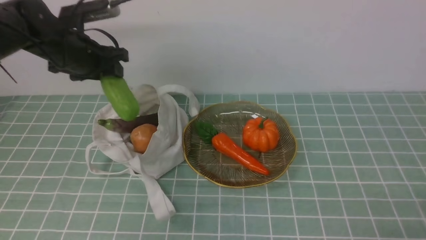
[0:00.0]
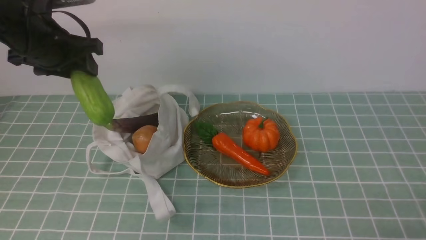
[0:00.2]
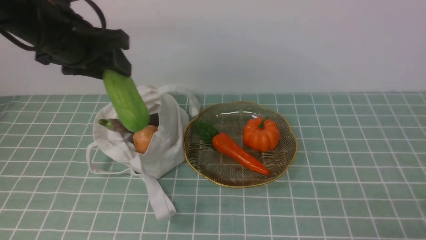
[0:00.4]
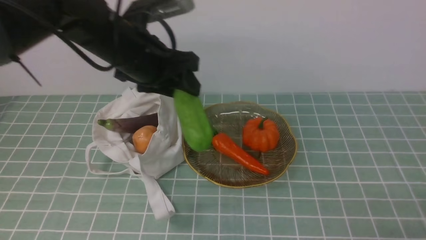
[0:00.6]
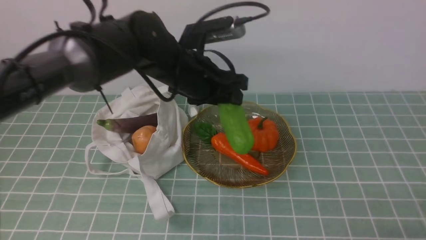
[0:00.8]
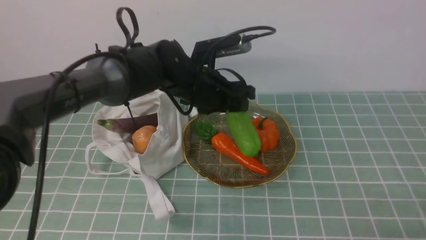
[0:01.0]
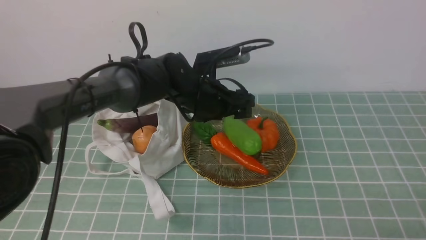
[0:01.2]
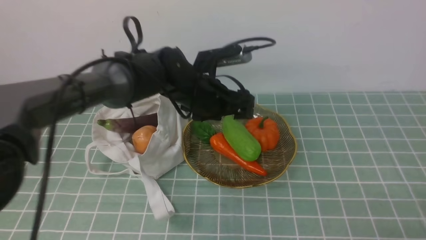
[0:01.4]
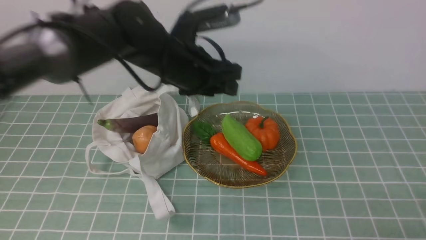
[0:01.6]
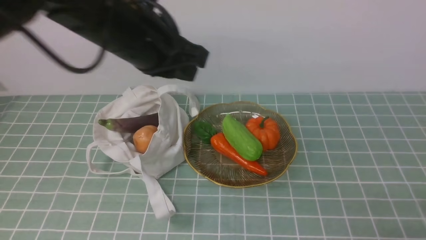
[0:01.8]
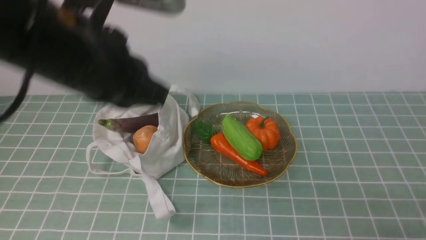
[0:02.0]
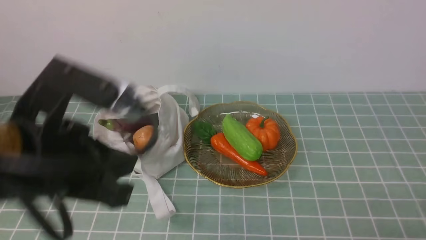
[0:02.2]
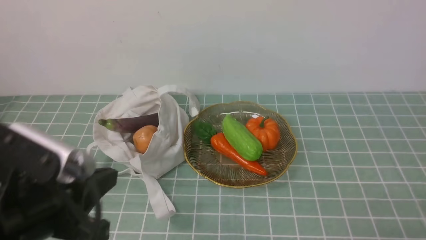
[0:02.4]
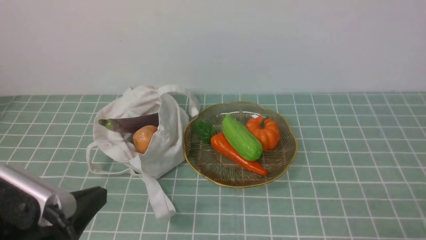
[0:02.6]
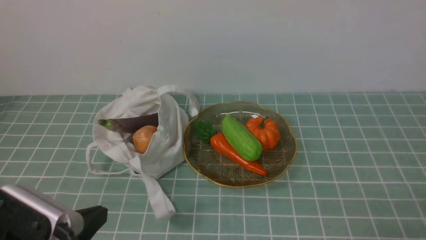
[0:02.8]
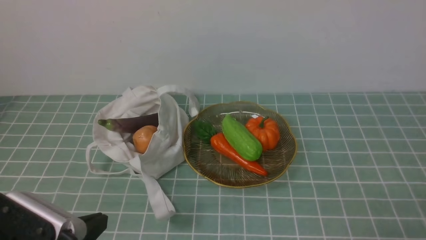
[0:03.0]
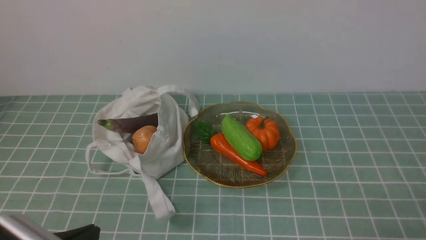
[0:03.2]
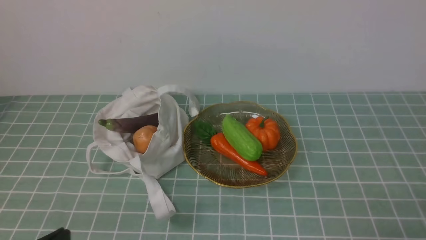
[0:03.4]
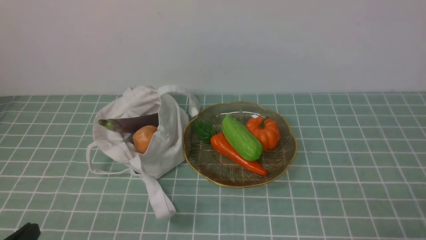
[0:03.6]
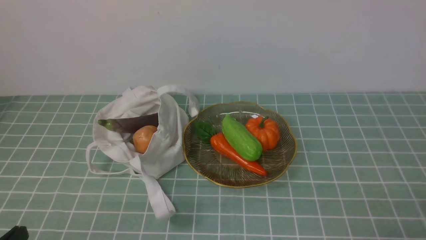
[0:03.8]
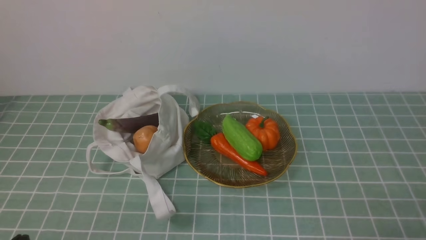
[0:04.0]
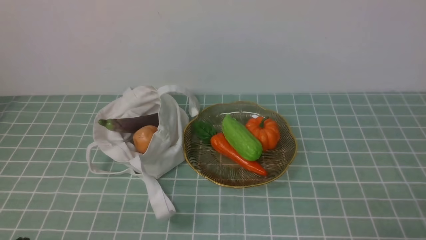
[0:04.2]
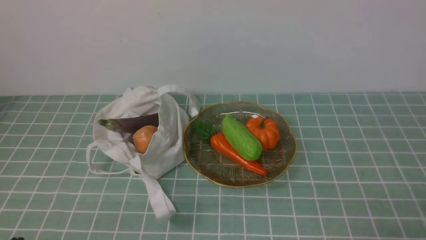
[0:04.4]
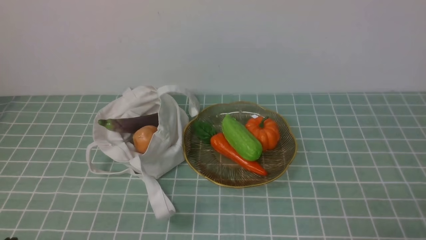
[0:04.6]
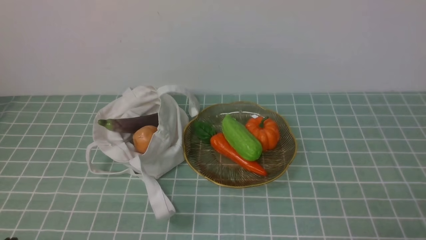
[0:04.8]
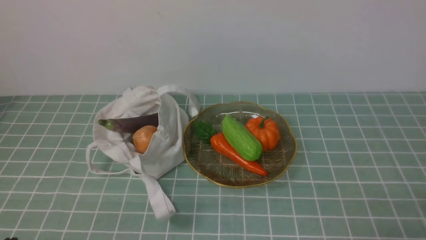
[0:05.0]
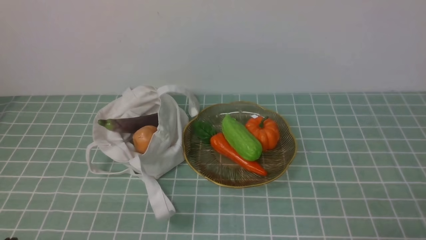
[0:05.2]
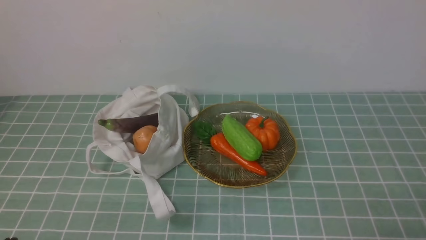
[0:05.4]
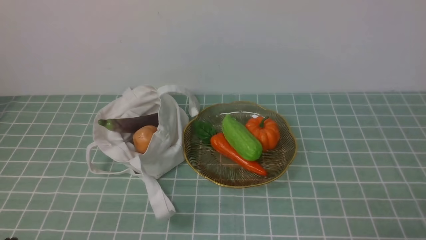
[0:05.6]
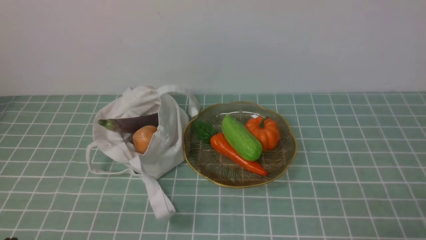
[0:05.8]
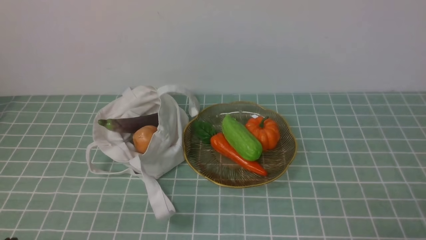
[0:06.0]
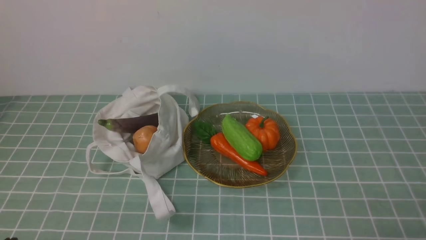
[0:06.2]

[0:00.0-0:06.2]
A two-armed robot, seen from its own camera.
Task of the whole recording: take vegetables from cloth bag on blue coffee tablecloth place on plate.
Step, 0:00.0 to 0:01.2: Place the bitter melon on the plate with left gripper.
0:00.0 to 0:01.6: The left gripper moves to the right, roughly 15 cm.
0:01.6 to 0:03.2: The left gripper heads backward and to the left, covering approximately 35 cm, and closes up.
0:03.2 to 0:04.6: The left gripper shifts by some 10 cm.
0:04.6 to 0:06.2: The two grippers keep their place.
